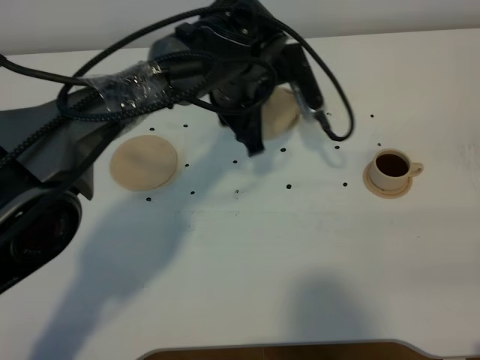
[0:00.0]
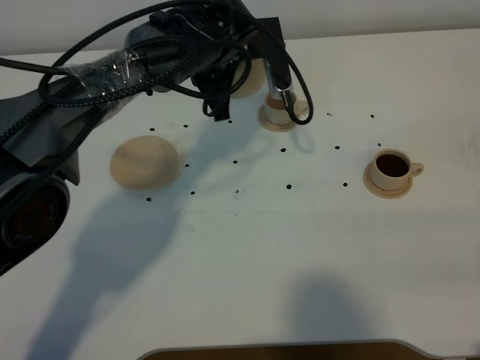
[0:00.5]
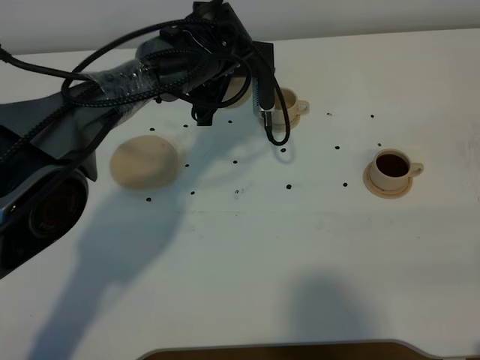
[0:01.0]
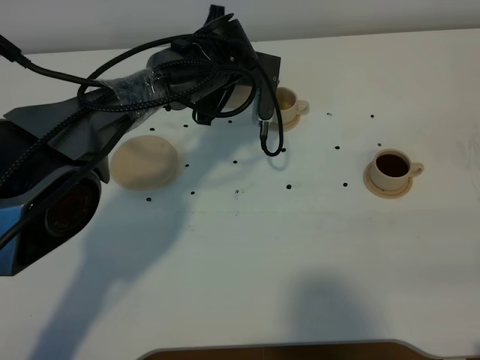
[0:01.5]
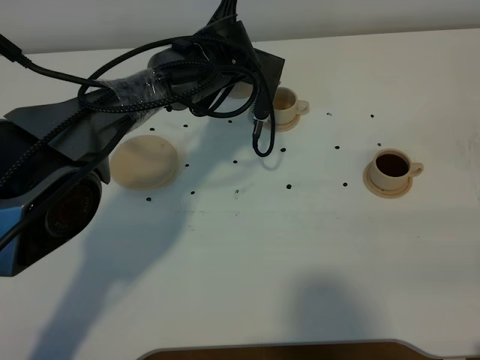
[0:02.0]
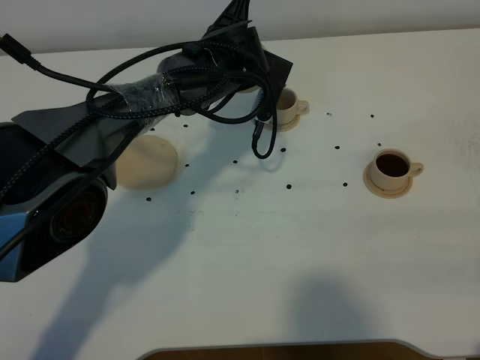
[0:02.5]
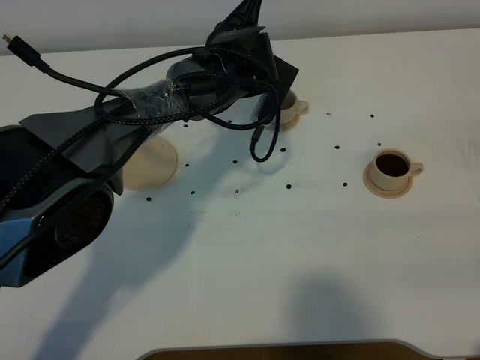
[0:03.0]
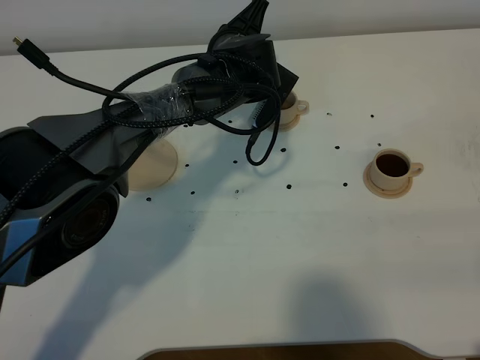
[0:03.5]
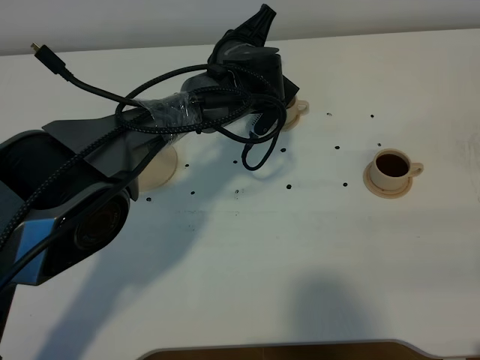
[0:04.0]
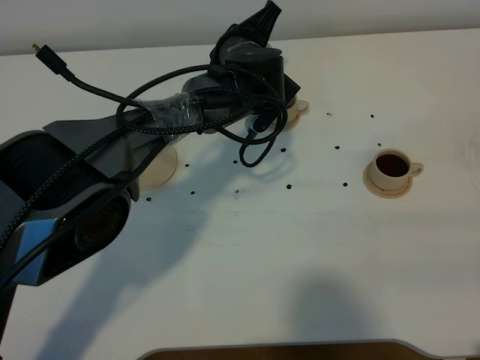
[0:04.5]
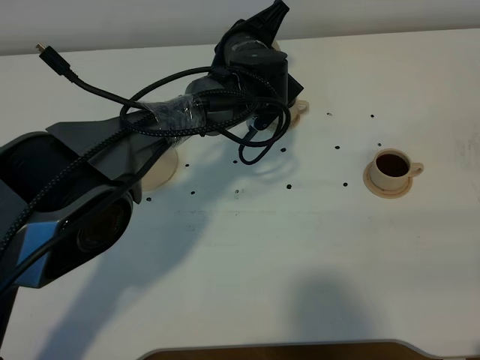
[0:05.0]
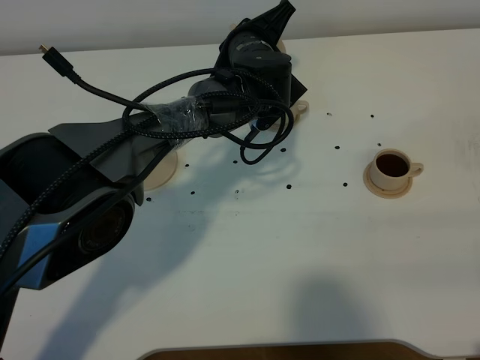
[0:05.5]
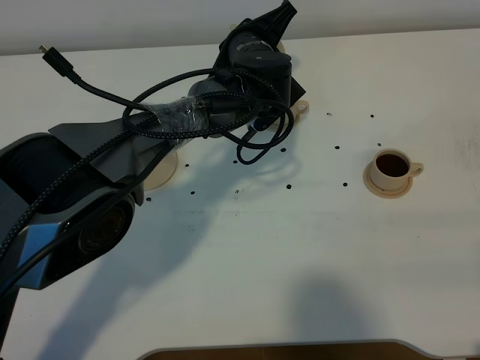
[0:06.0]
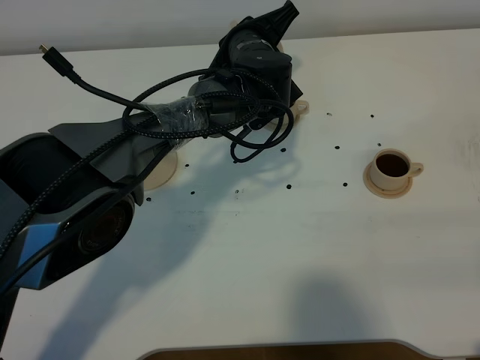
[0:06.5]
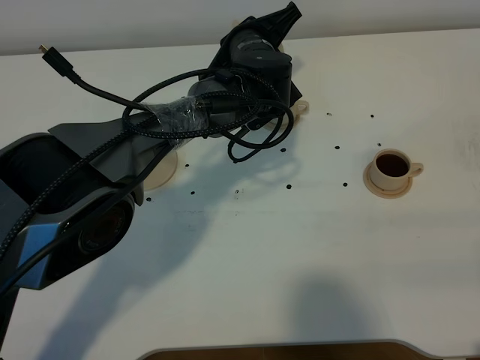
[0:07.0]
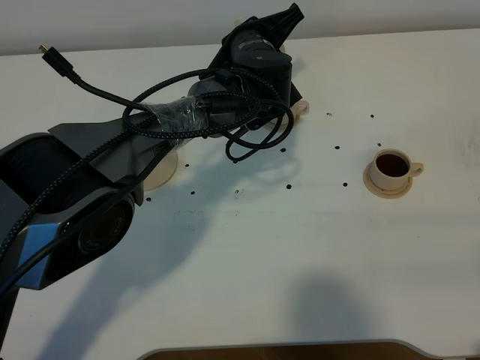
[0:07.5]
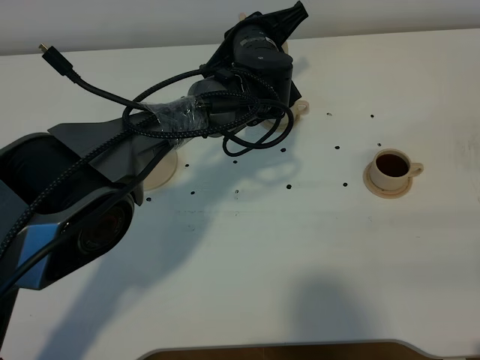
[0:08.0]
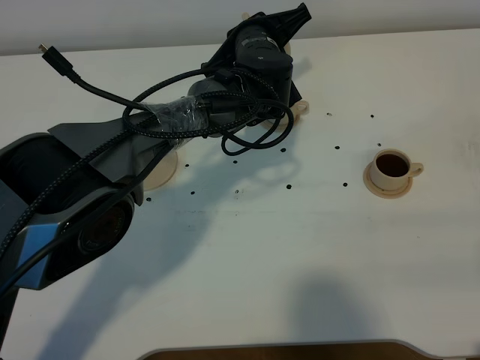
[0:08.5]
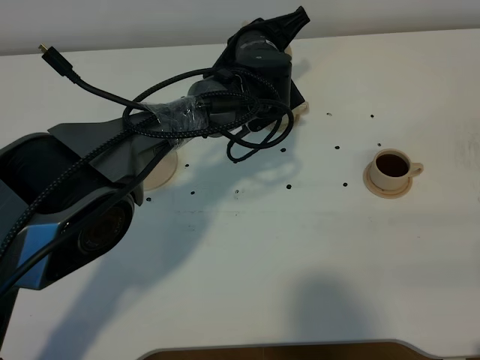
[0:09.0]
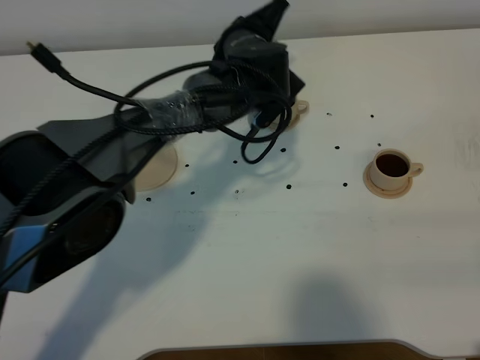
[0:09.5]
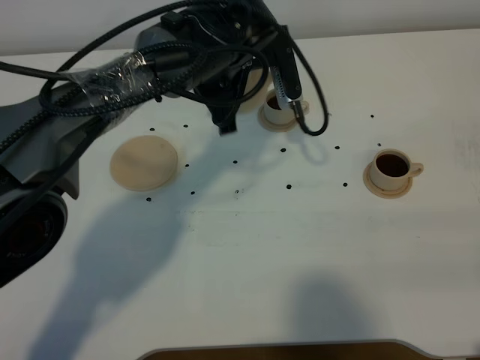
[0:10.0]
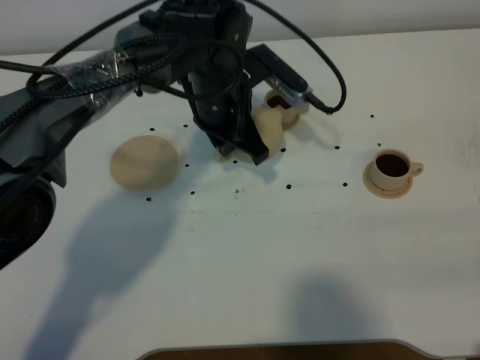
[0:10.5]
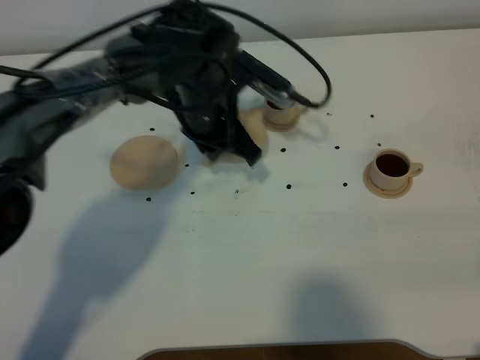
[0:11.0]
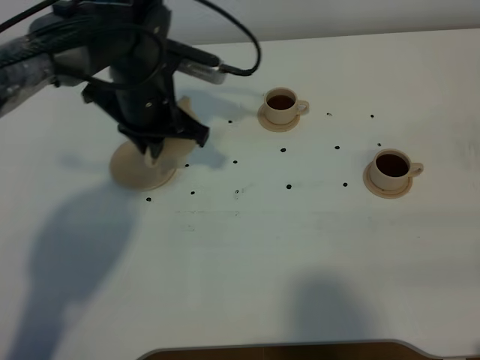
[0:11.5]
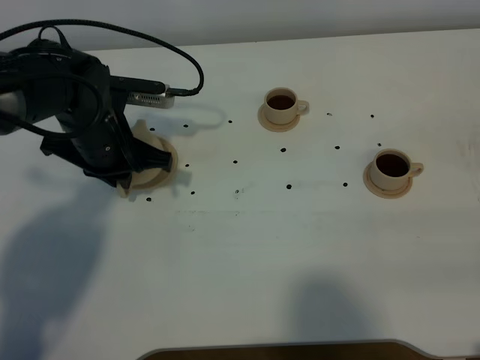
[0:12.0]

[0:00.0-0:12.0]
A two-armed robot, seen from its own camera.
Task of the whole recording: grasp the brown teapot and pour the tea into the two brown teacups one by one, put the brown teapot back in its original place.
Step, 0:00.0 to 0:09.5: Pour tea into the teacup with the left gripper.
0:00.0 to 0:02.0: The left gripper travels forward by approximately 5 cm.
0:04.0 to 0:06.0: The grippers move only a little.
0:06.0 to 0:08.0: The grippers move only a little.
0:08.0 to 0:10.0: The left gripper shifts about 10 cm upward and backward.
0:10.0 to 0:12.0: The left gripper travels to the left by about 15 cm.

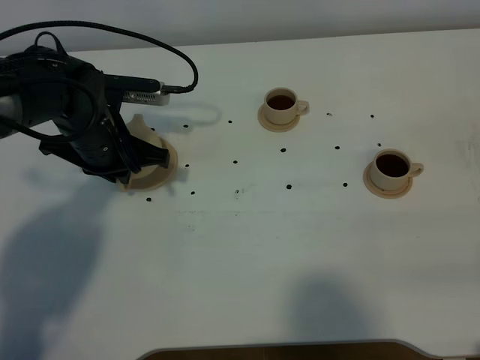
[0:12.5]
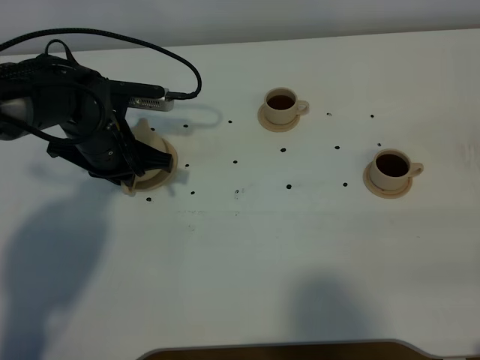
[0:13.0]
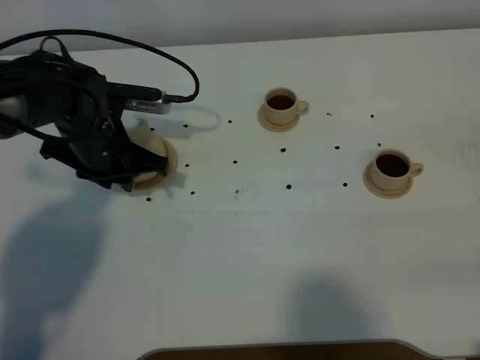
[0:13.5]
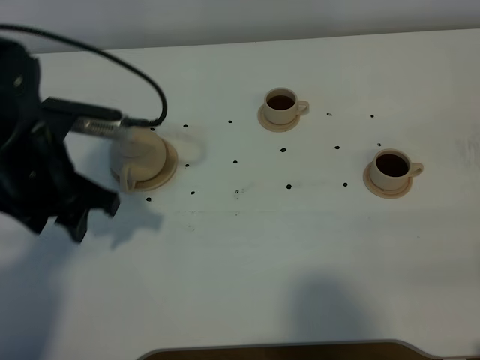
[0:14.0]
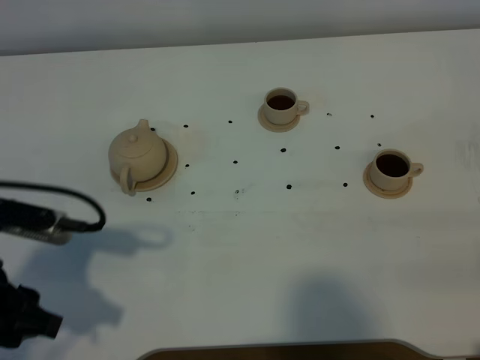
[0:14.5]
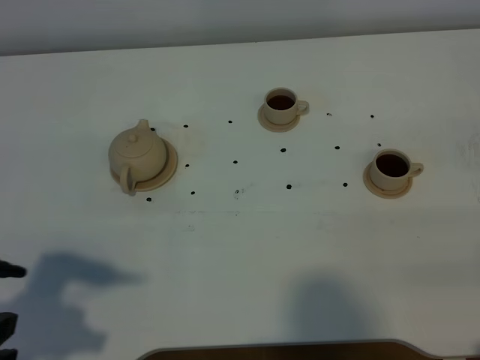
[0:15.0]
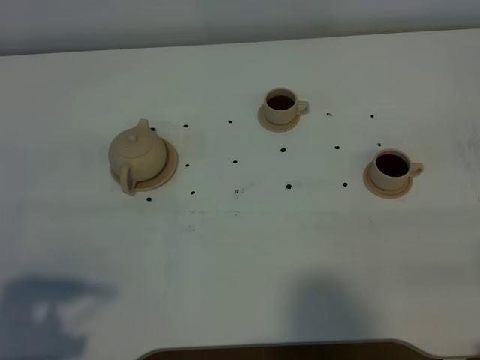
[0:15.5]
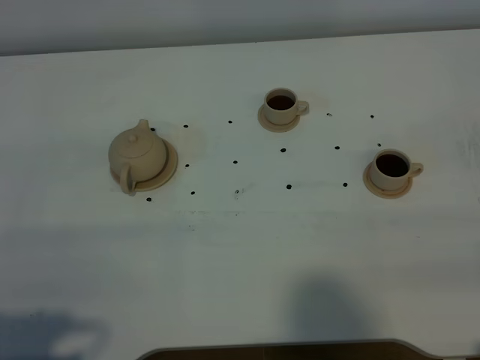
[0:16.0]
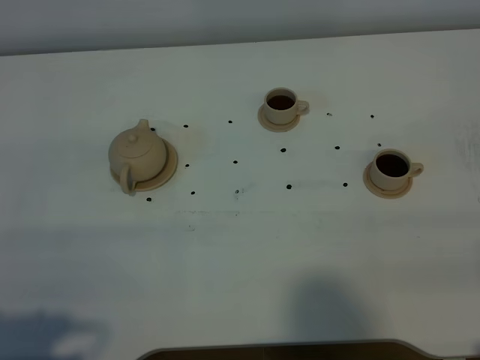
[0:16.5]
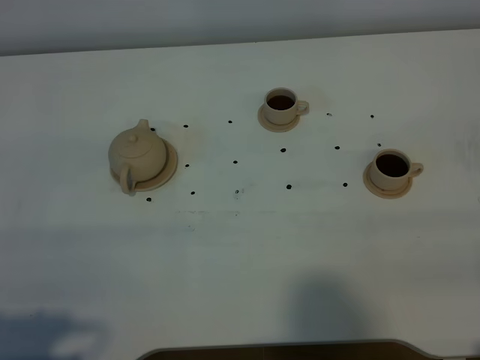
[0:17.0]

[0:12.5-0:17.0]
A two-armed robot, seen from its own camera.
Task of the whole recording: grasp the brown teapot and pour the tea into the two brown teacups one by one, put the brown teapot back in its original place.
0:12.5 to 0:14.5: The left gripper is displaced backward by roughly 20 cm, and opens its fingers.
0:14.5 to 0:17.0: The left gripper travels backward by approximately 15 cm.

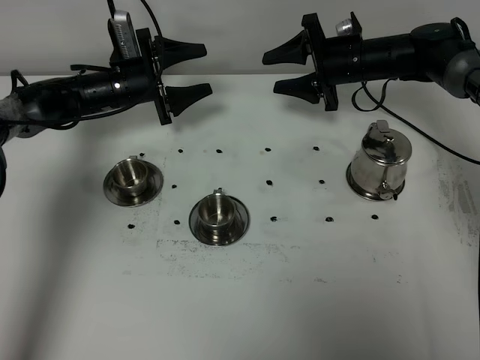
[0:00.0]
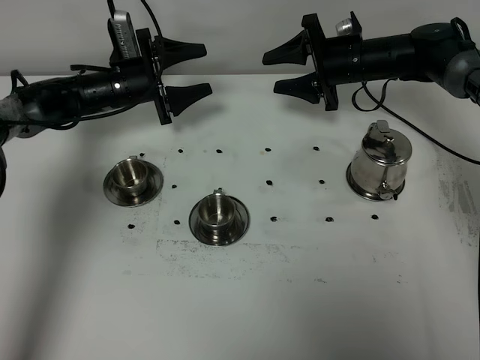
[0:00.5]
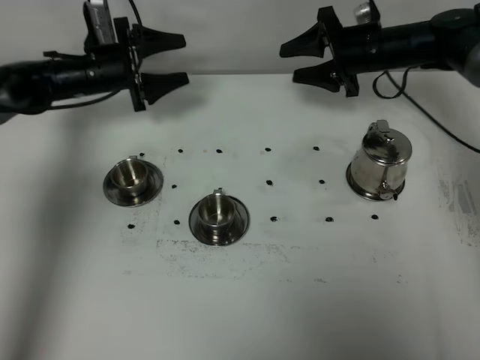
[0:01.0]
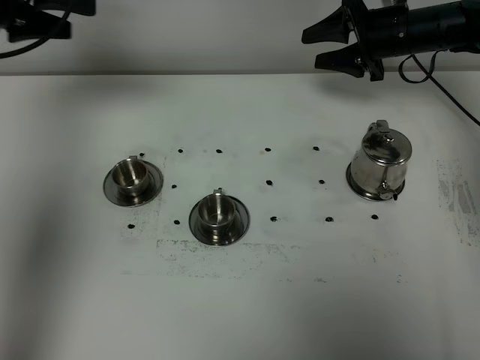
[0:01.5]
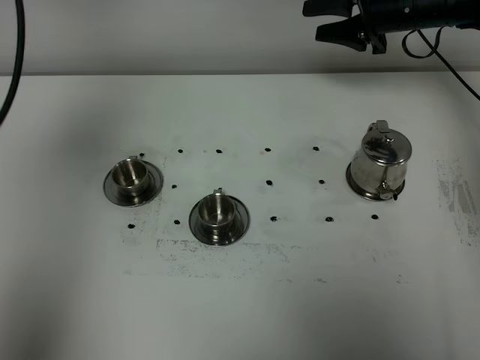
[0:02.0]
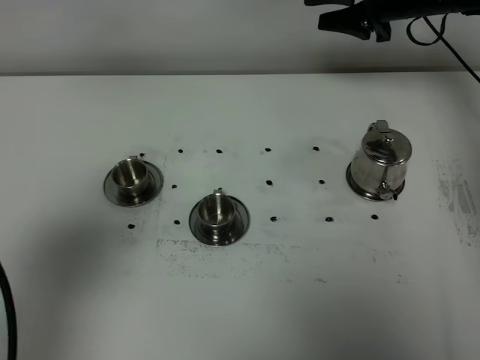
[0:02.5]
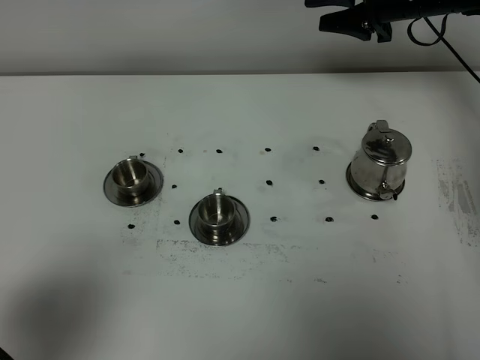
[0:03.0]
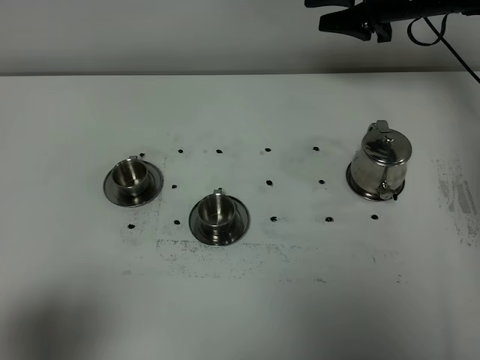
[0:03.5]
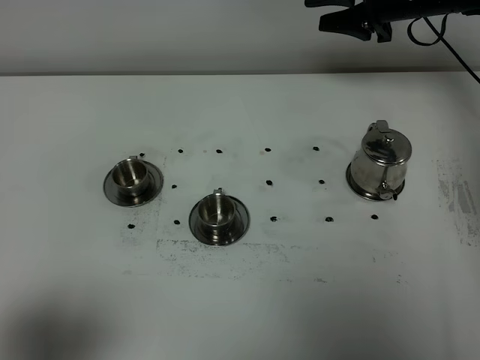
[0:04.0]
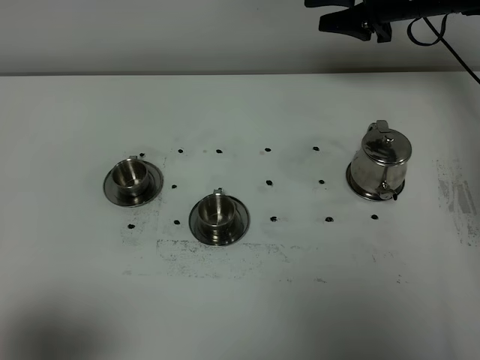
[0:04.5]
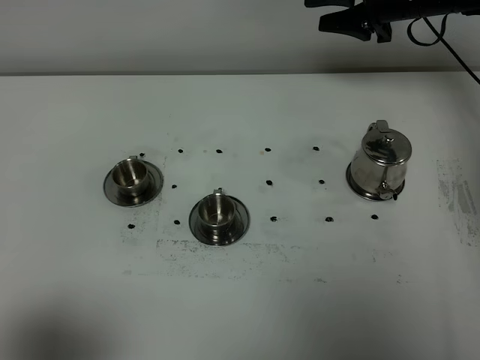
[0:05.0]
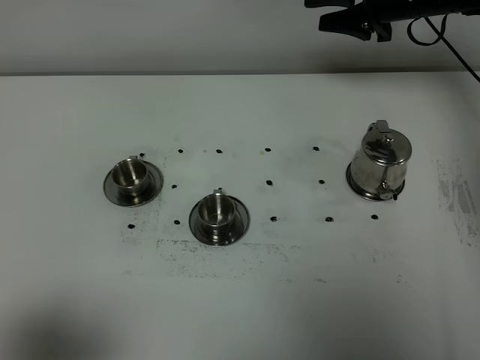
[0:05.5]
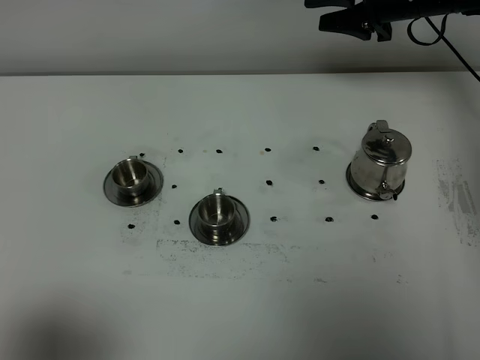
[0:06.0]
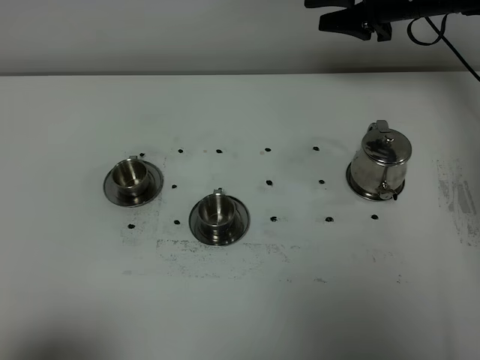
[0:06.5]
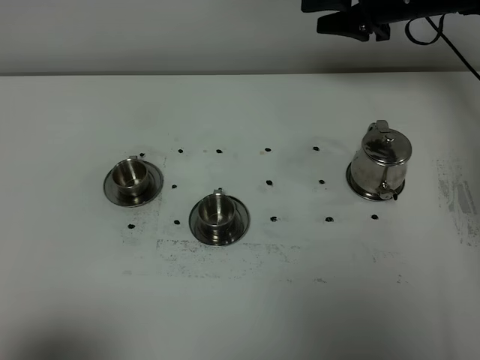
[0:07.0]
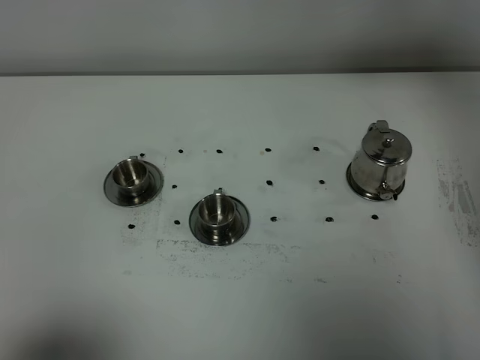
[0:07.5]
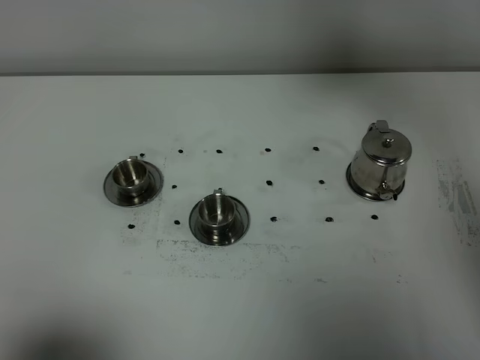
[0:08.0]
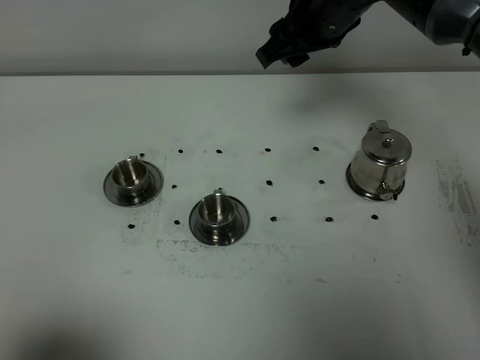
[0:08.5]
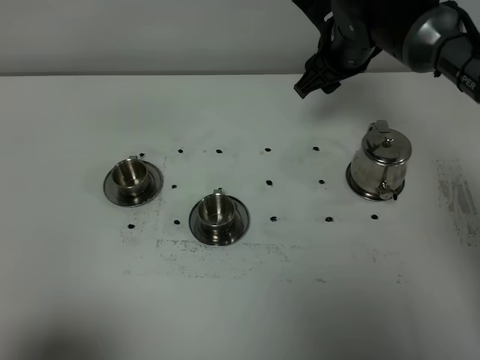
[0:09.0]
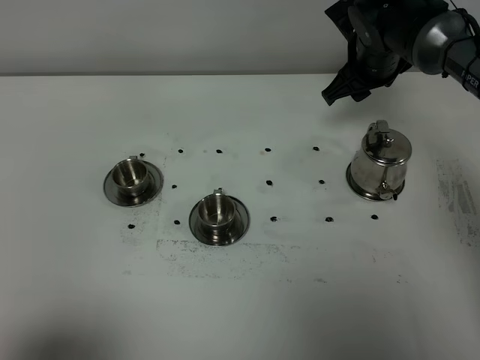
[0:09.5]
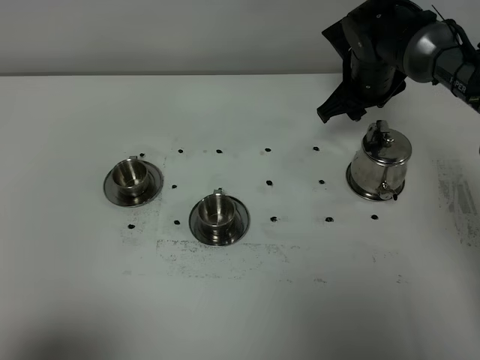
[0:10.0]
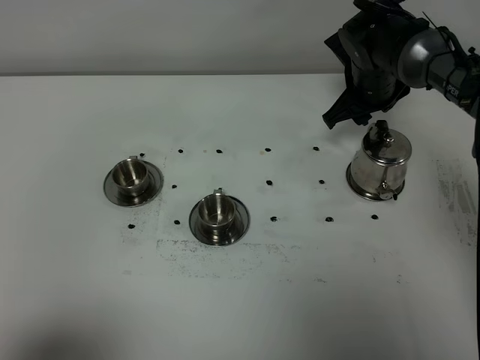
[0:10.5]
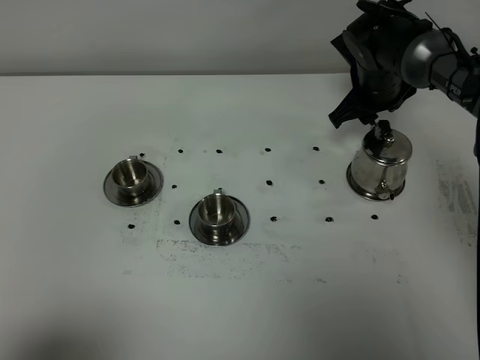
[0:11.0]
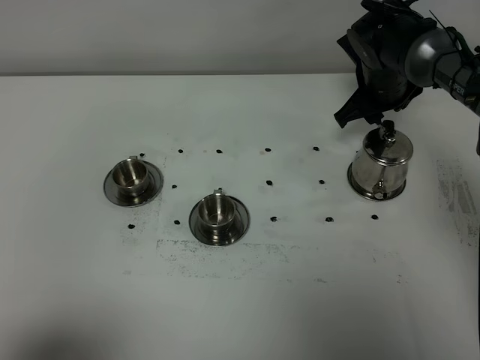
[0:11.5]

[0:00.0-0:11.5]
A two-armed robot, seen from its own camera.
Task of the whole recording: grasp the stainless steel teapot and pour the tea into the two stainless steel teacups one by one, put the stainless steel teapot back in its original place.
0:00.0 to 0:02.0: The right gripper goes roughly 10 cm upward and to the right. Meanwhile the left gripper heads upward and backward, covering about 40 cm.
0:02.0 to 0:04.0: The left gripper heads backward and downward, covering some 30 cm.
0:06.0 to 0:07.5: The right gripper travels upward and backward by some 15 cm.
0:07.5 to 0:09.5: The right gripper heads downward, covering some 15 cm.
0:09.5 to 0:11.5: There are only small adjustments of the grippers.
